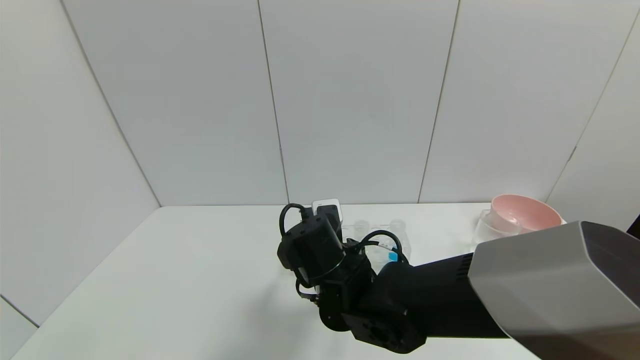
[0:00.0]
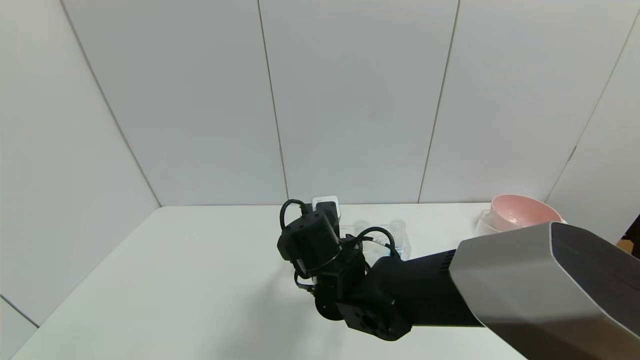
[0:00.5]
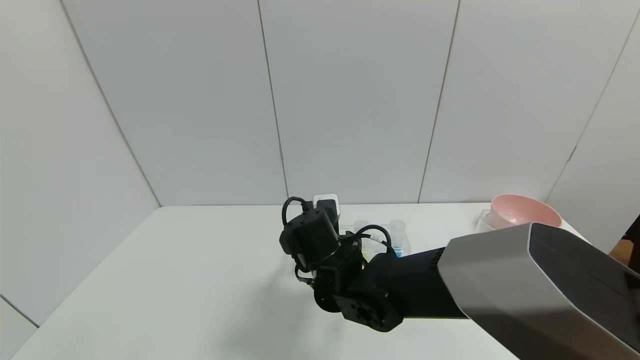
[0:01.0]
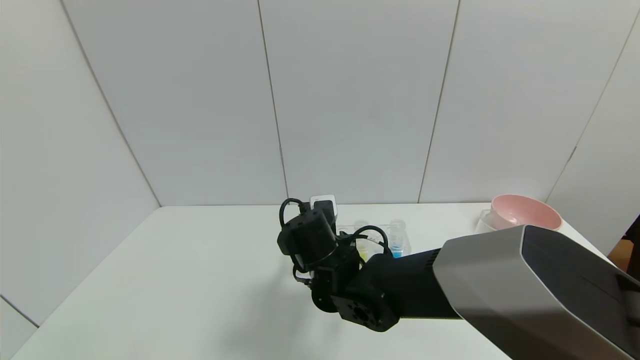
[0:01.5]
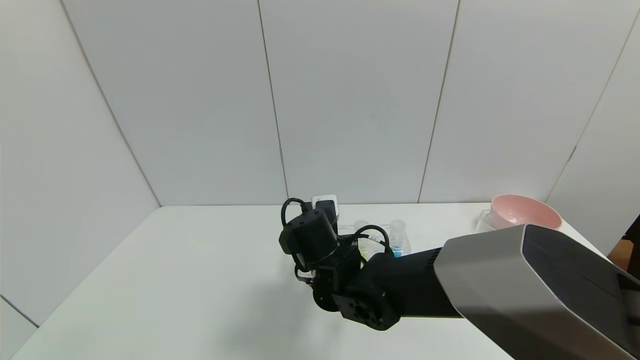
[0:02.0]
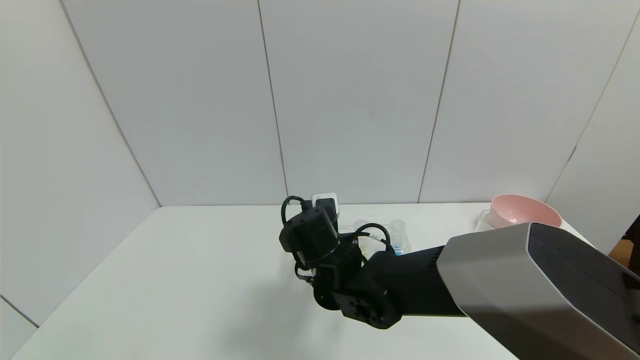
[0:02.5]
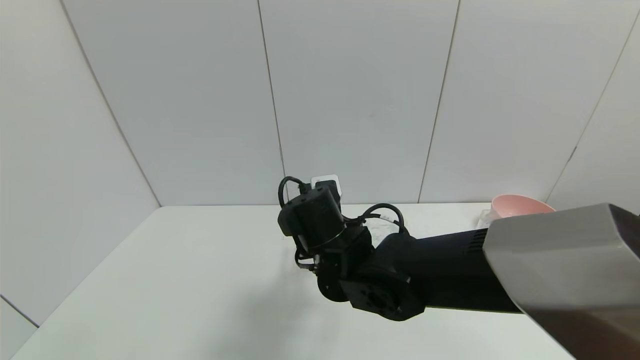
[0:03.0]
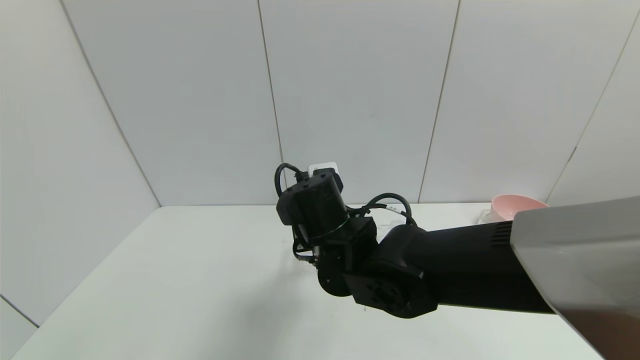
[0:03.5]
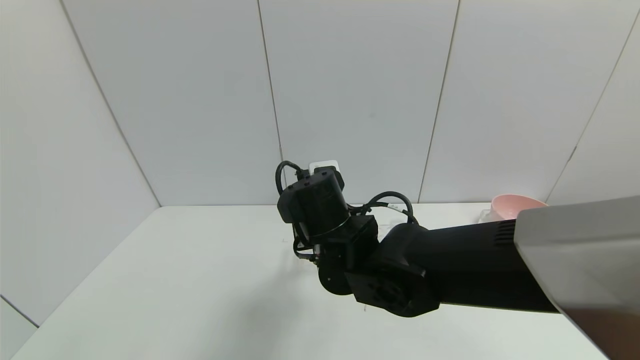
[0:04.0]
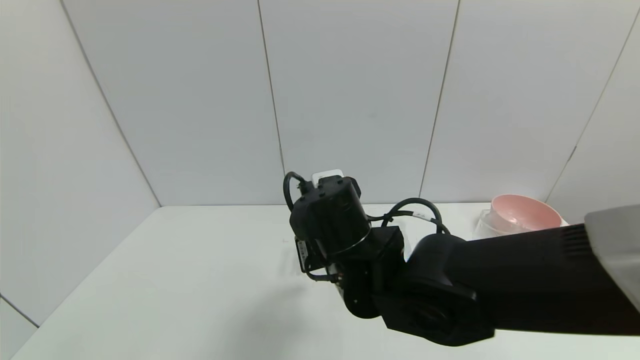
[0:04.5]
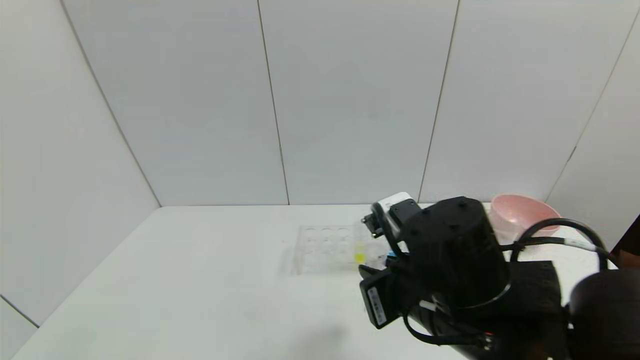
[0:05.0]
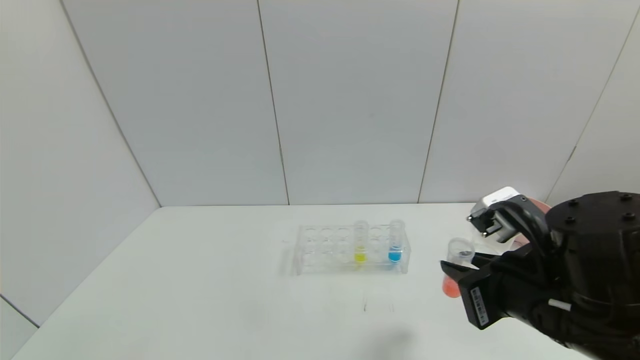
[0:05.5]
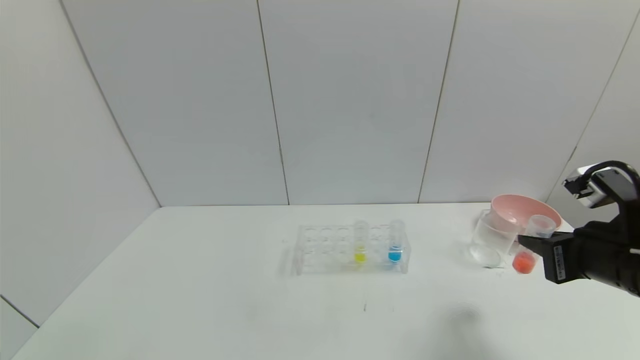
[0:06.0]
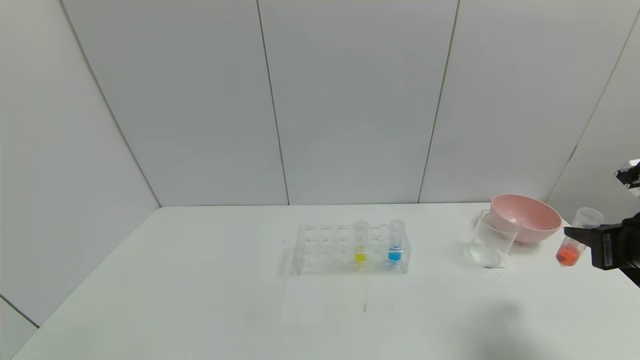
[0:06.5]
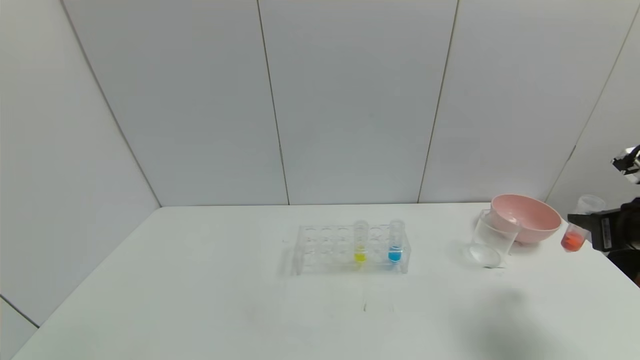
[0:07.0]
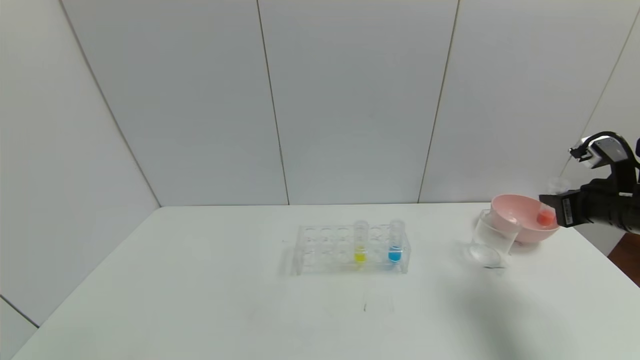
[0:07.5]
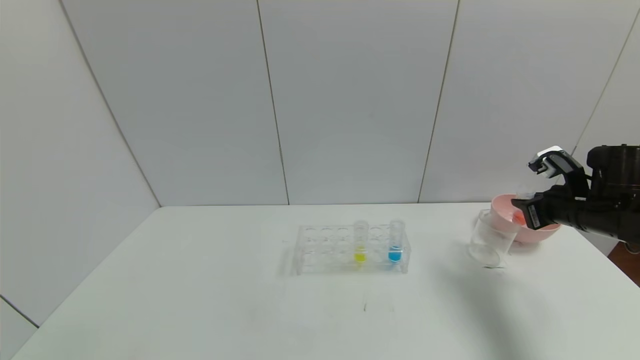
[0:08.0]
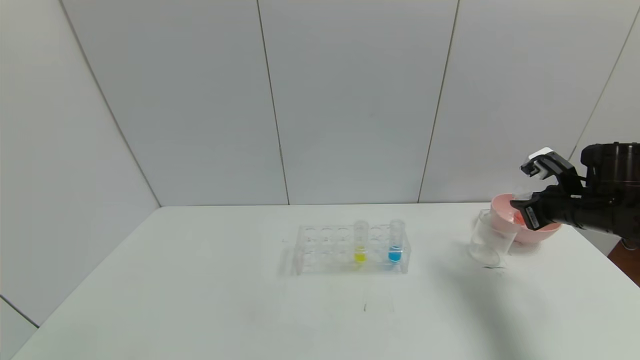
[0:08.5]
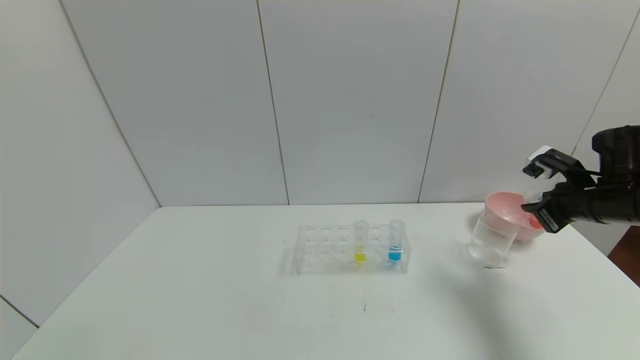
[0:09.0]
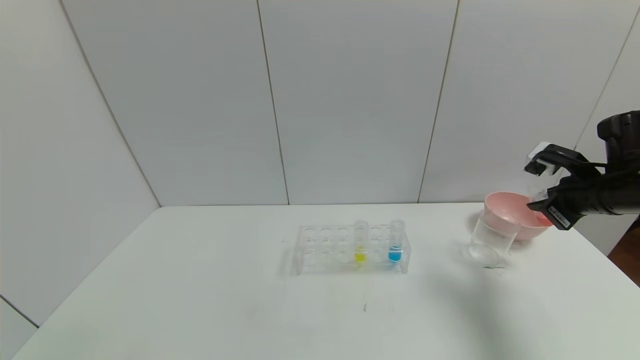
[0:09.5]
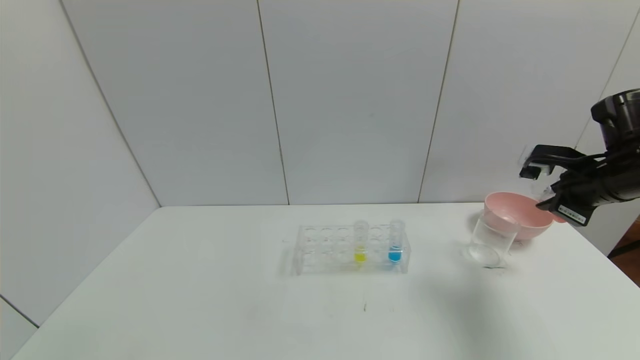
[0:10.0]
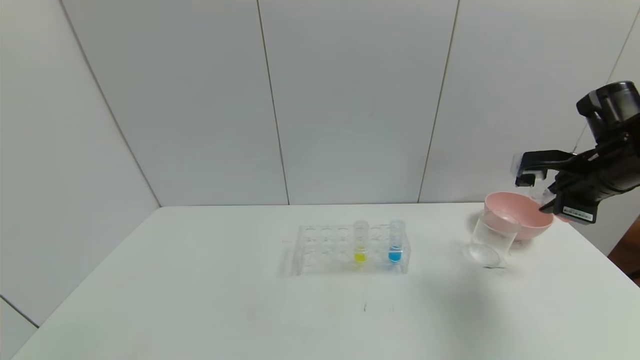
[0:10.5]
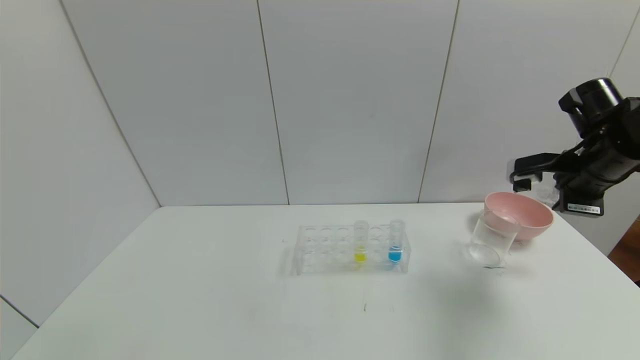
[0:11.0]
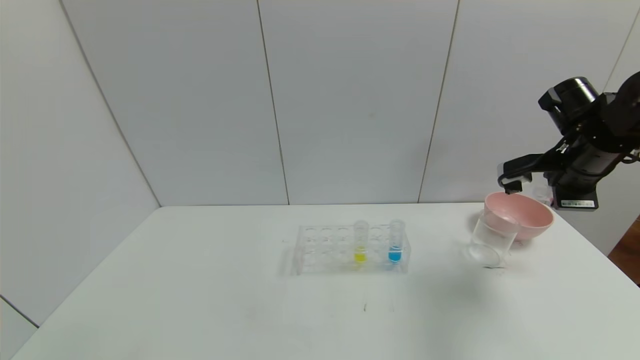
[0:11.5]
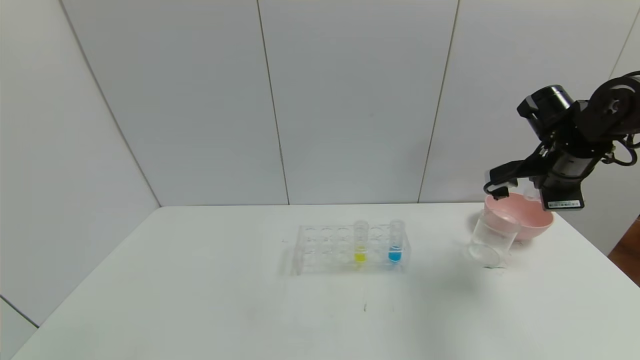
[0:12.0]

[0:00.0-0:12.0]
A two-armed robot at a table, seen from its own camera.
Task of the whole recording: pick up the test tube with red pigment and the test tube with blue pigment by grippers and pour them into the container.
Step, 0:00.0 to 0:02.0: Grasp the red reagent with the right gripper.
0:00.0 to 0:02.0: The right gripper closes up.
0:02.0 to 0:04.0: The right gripper travels upward by some 5 cm.
0:04.0 to 0:06.0: The right gripper is displaced to the right by some 30 cm.
0:06.0 to 0:08.0: The right gripper moves forward and to the right, some 15 cm.
0:08.0 to 0:10.0: The right gripper shifts roughly 5 cm upward.
0:10.0 to 0:12.0: The right gripper heads forward, covering about 5 cm.

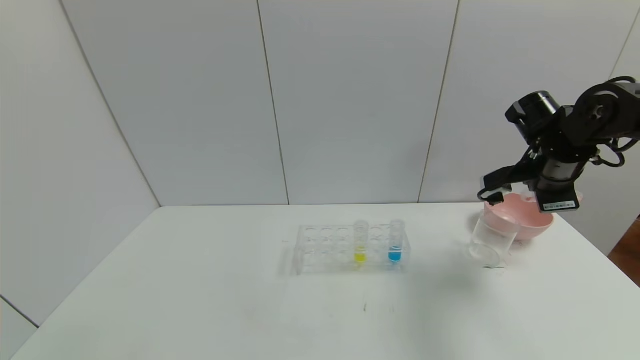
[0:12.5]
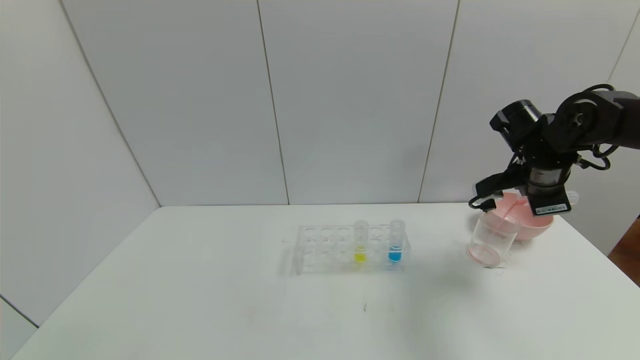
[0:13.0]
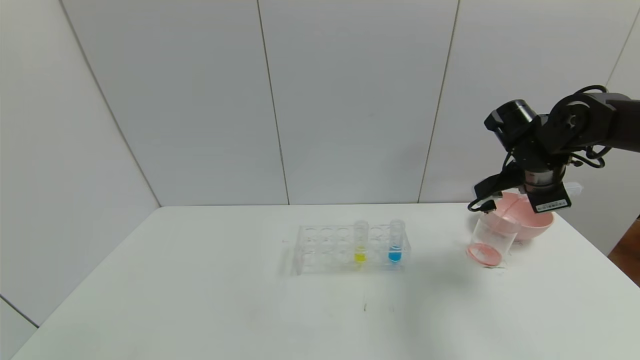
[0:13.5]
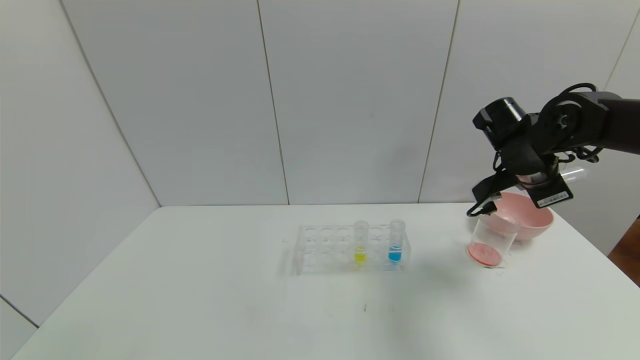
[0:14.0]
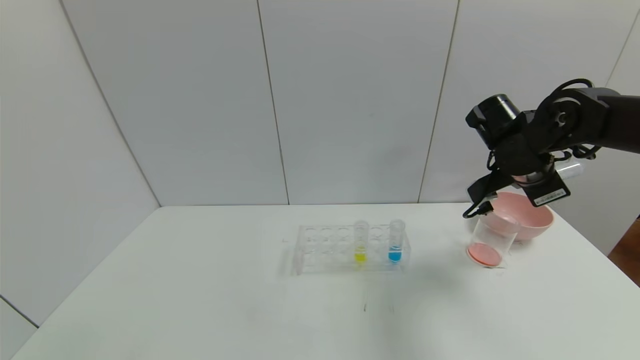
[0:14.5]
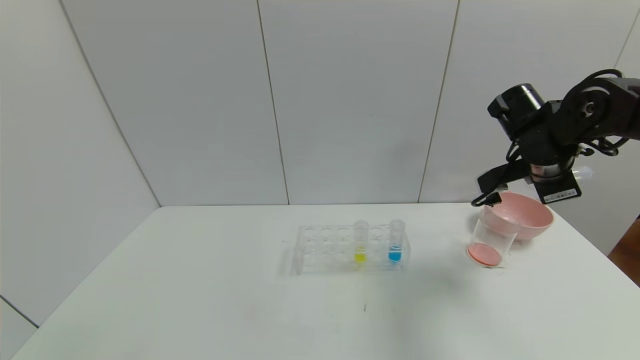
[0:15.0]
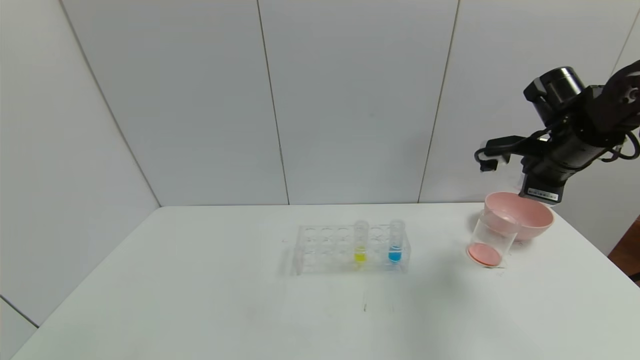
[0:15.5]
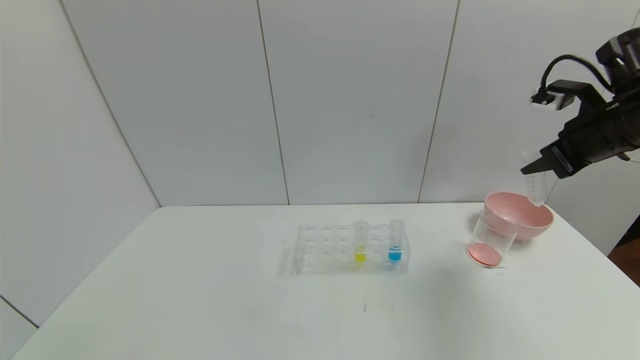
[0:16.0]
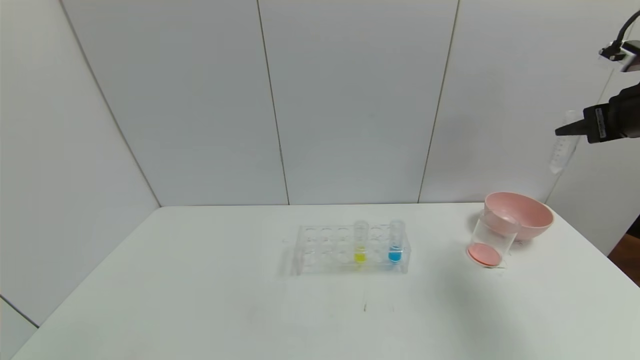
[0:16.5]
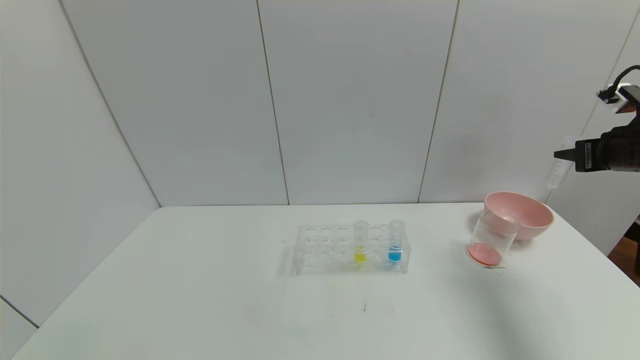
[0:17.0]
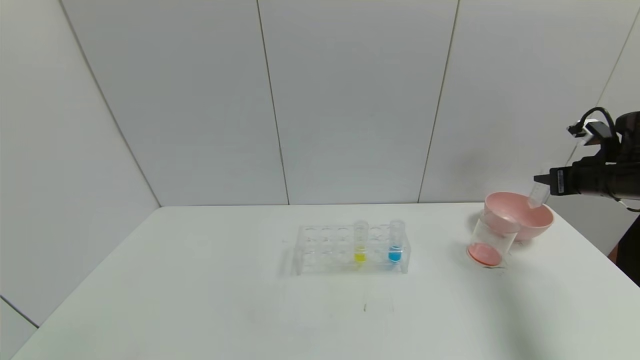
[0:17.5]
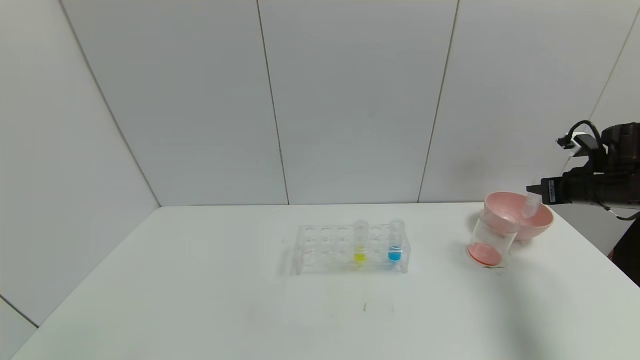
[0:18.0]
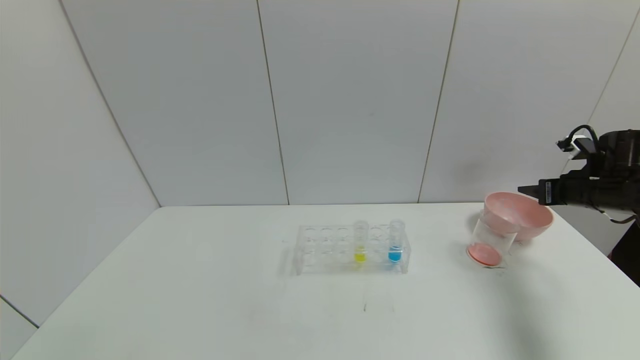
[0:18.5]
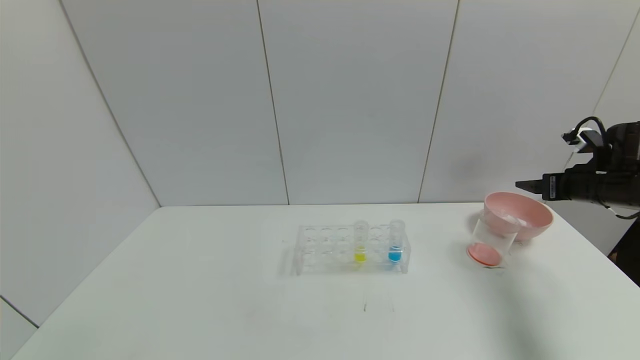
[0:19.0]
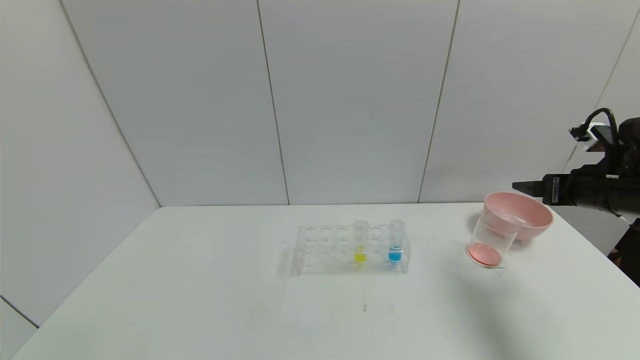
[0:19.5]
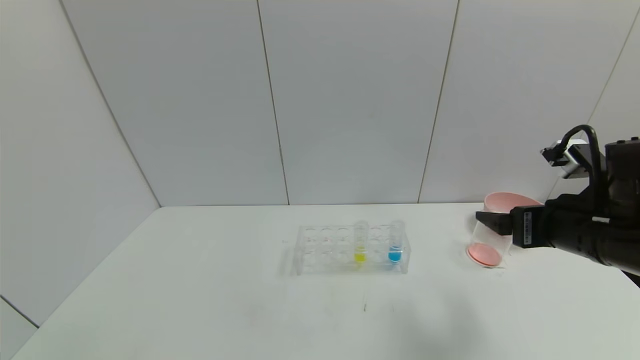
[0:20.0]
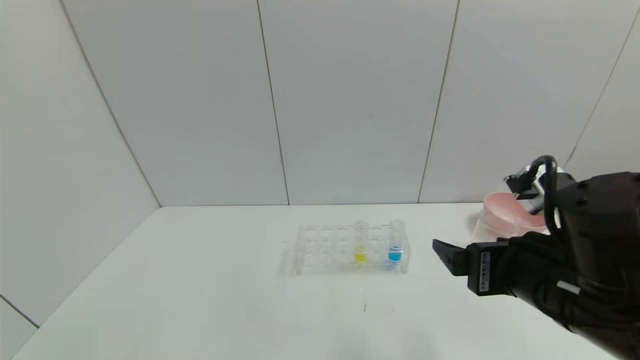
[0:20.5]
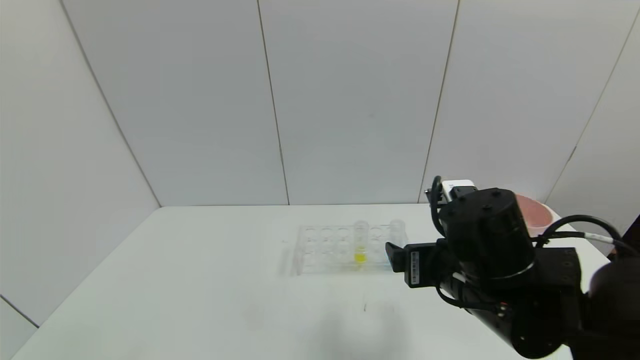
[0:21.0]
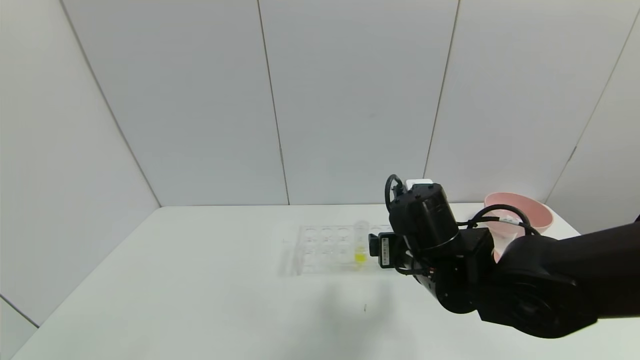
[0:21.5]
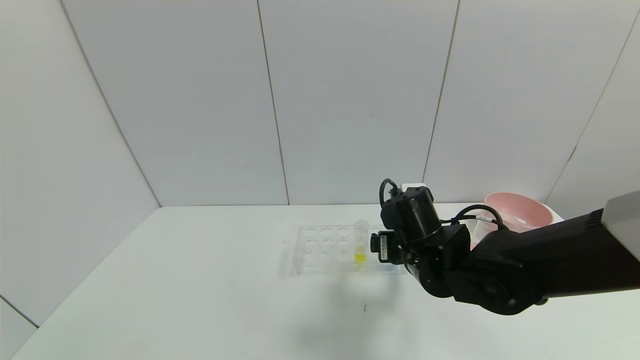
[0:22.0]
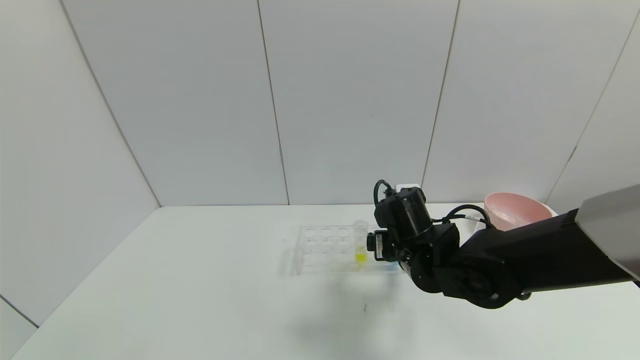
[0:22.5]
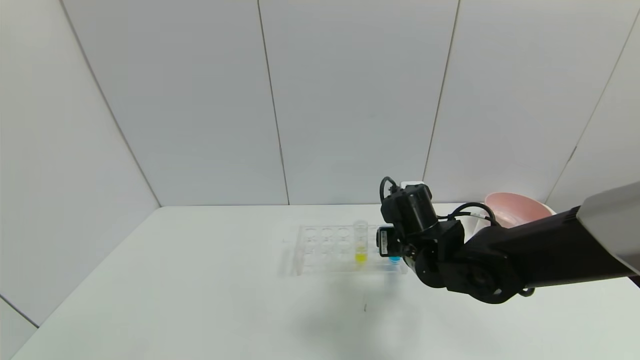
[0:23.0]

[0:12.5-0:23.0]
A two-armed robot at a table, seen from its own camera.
Task of the whole recording: pick up the test tube with red pigment and the test tube with blue pigment by grippers and pour them into the container.
Step, 0:12.5 to 0:14.5: Pour the red reagent into the graduated cylinder with the right gripper.
Step, 0:15.0 to 0:19.5: Place the test tube into the bowl with the right gripper.
0:12.5 to 0:14.5: The right gripper heads to the left, covering roughly 5 cm.
0:14.5 to 0:16.5: The right gripper moves to the right and upward, about 15 cm.
0:16.5 to 0:19.0: The right gripper heads downward, covering roughly 15 cm, and opens its fingers.
0:19.0 to 0:21.0: The right gripper moves to the left and backward, about 35 cm.
0:21.0 to 0:23.0: The right gripper travels forward and downward by about 10 cm.
